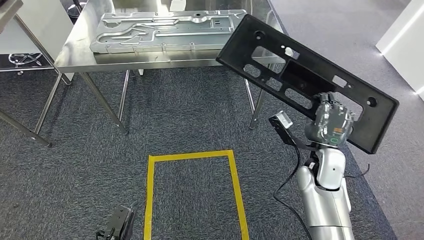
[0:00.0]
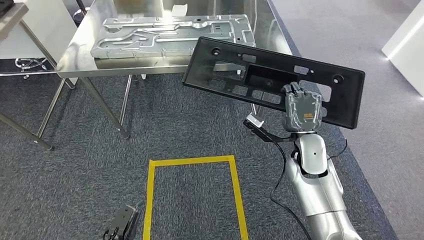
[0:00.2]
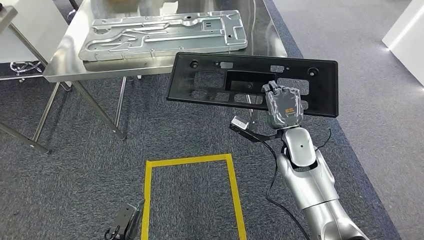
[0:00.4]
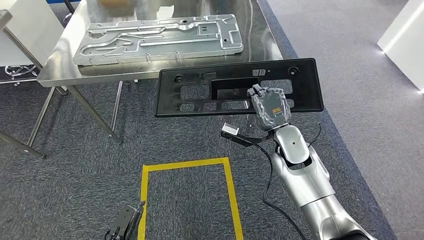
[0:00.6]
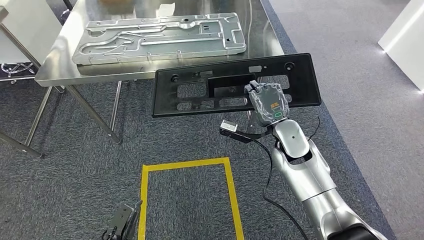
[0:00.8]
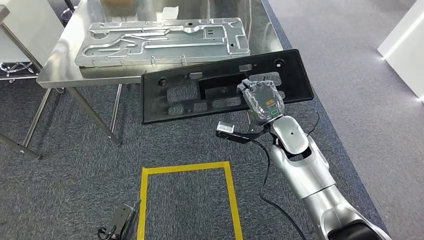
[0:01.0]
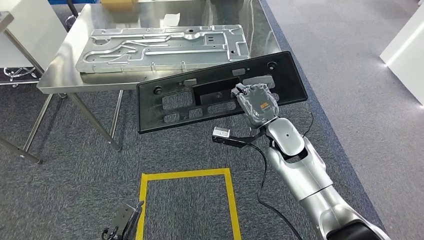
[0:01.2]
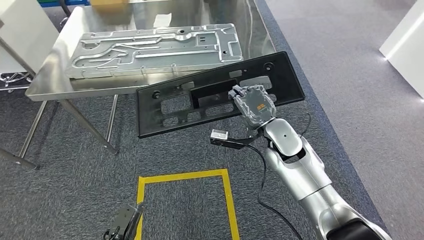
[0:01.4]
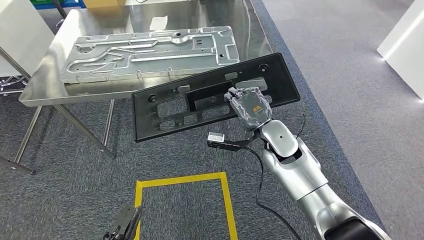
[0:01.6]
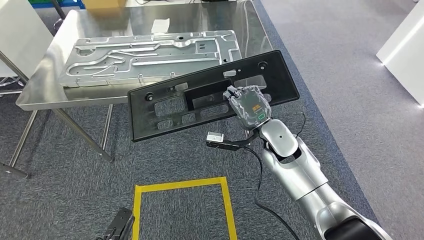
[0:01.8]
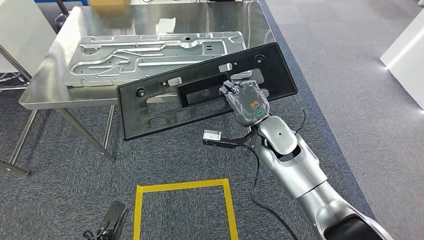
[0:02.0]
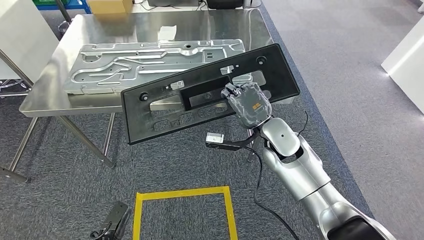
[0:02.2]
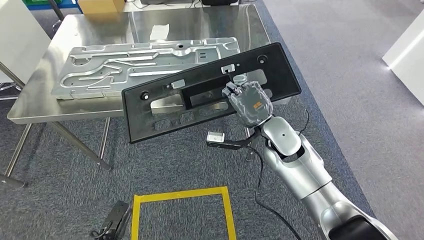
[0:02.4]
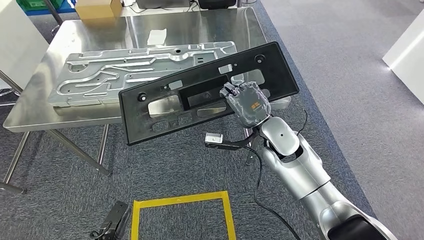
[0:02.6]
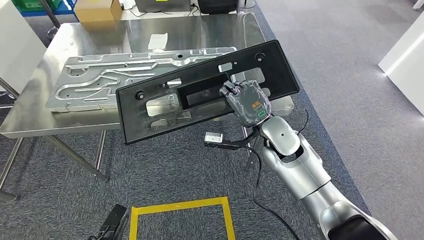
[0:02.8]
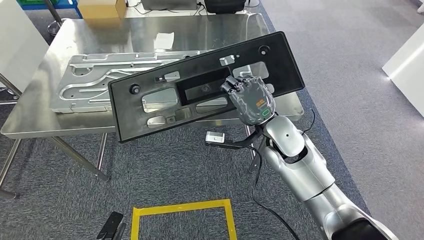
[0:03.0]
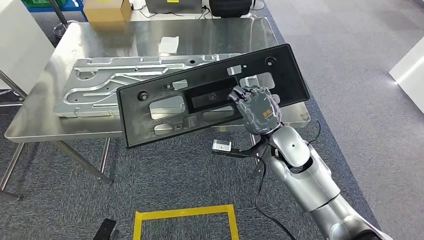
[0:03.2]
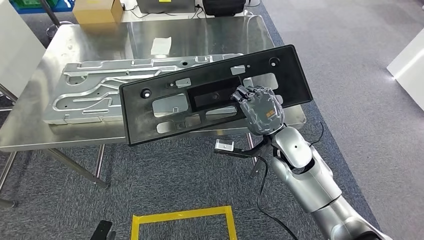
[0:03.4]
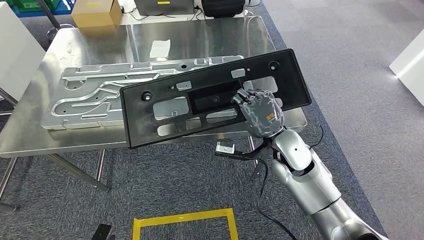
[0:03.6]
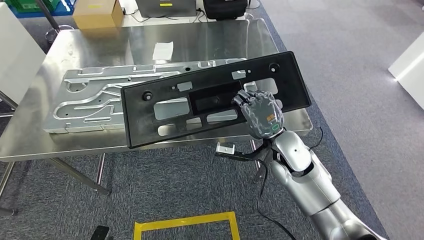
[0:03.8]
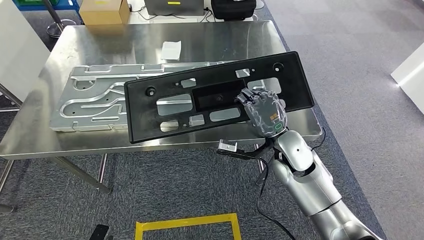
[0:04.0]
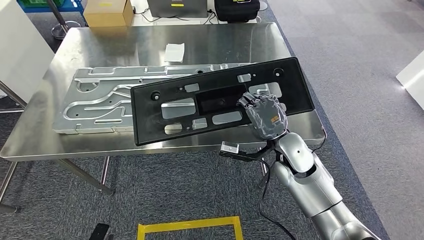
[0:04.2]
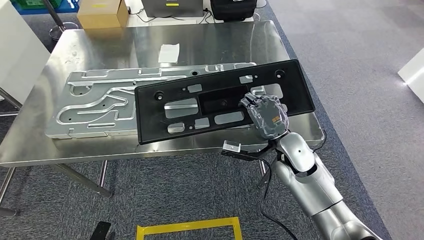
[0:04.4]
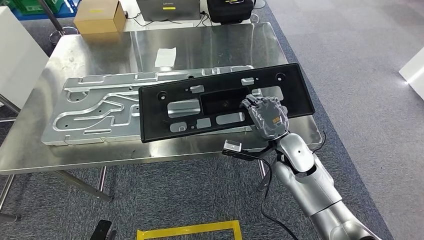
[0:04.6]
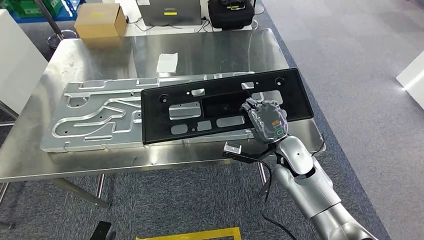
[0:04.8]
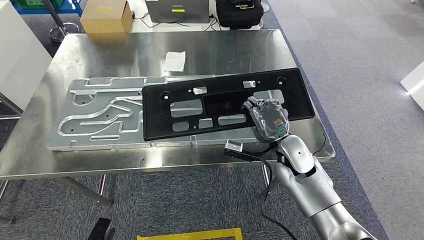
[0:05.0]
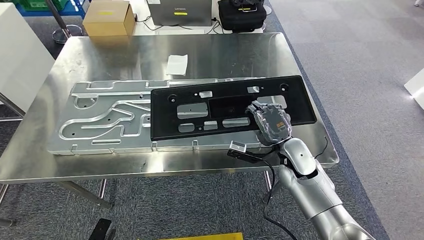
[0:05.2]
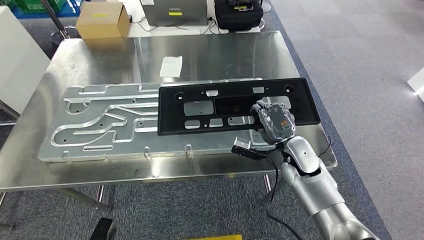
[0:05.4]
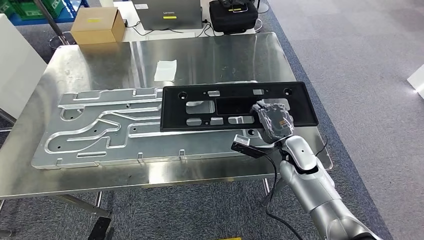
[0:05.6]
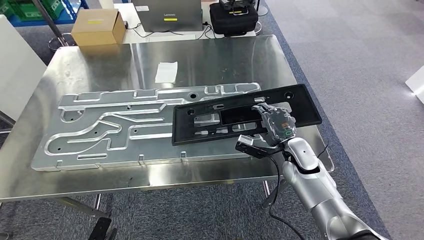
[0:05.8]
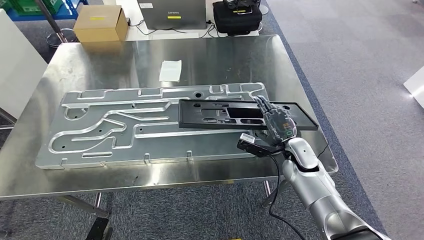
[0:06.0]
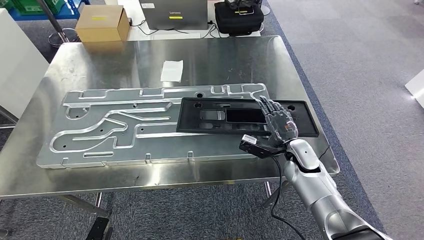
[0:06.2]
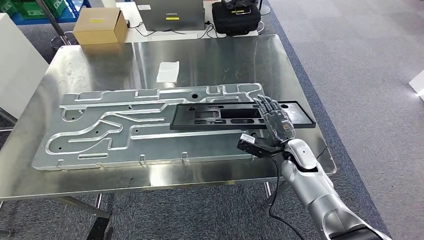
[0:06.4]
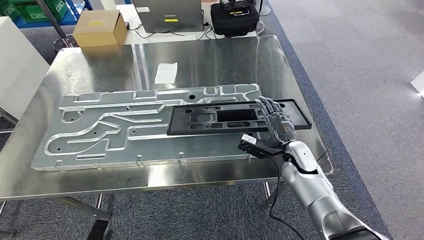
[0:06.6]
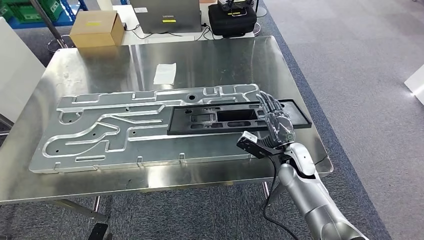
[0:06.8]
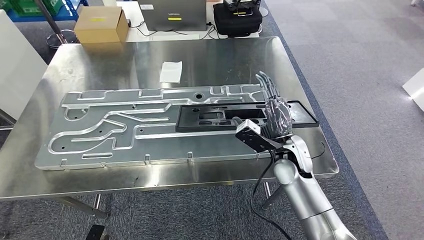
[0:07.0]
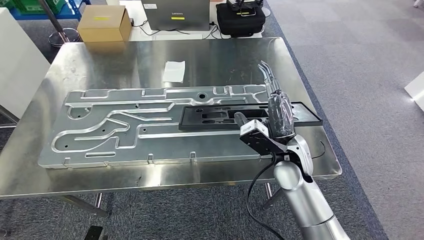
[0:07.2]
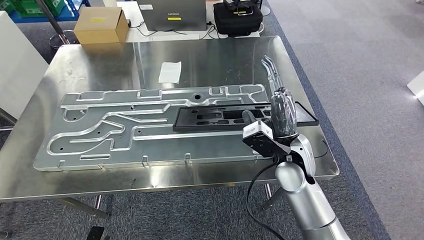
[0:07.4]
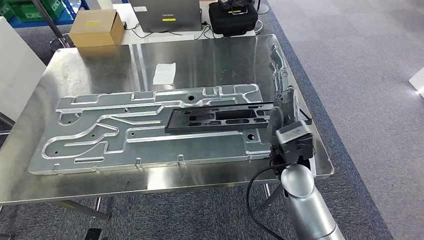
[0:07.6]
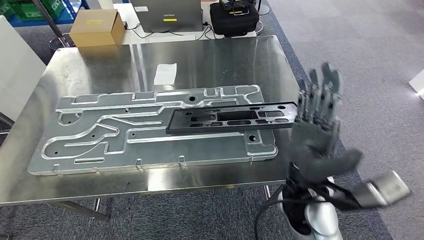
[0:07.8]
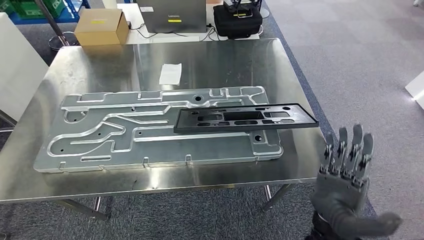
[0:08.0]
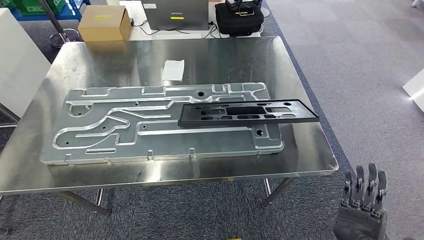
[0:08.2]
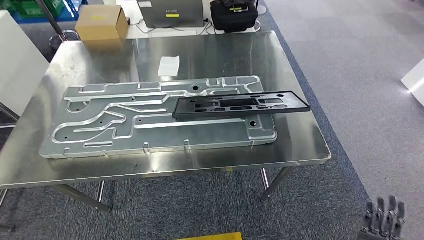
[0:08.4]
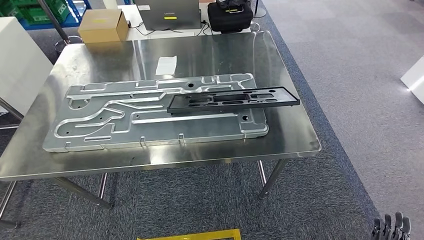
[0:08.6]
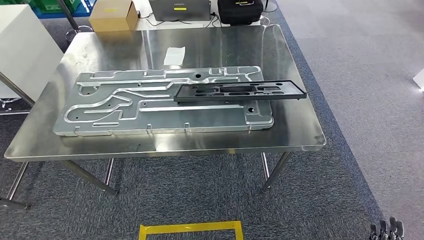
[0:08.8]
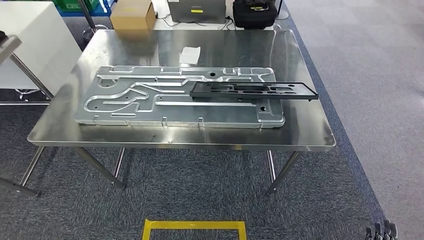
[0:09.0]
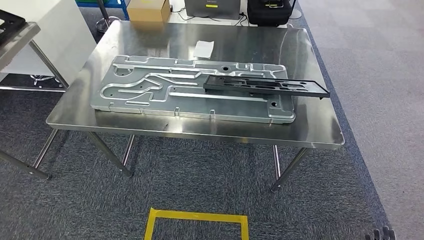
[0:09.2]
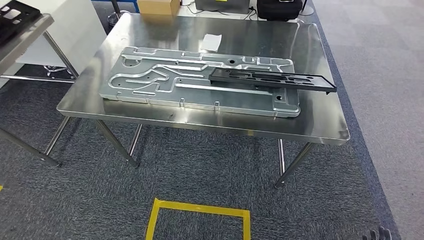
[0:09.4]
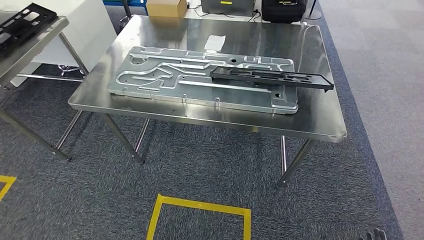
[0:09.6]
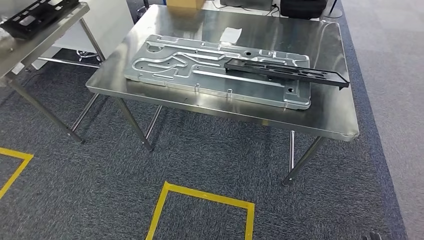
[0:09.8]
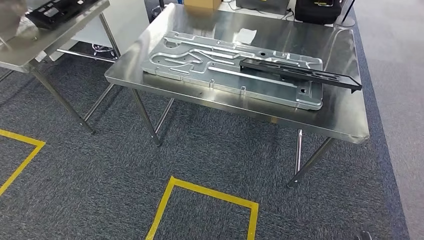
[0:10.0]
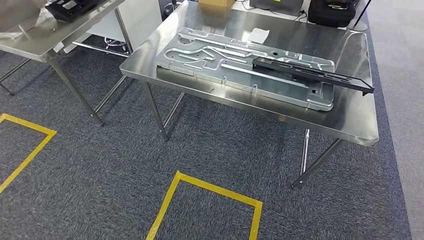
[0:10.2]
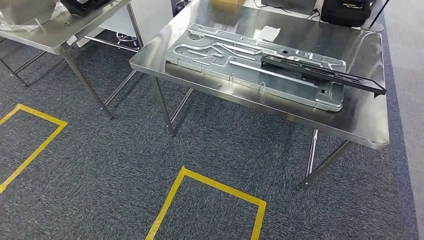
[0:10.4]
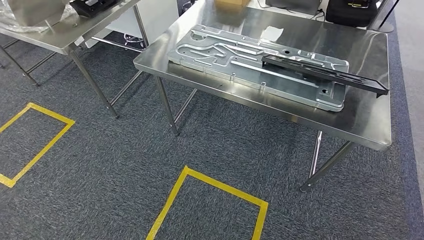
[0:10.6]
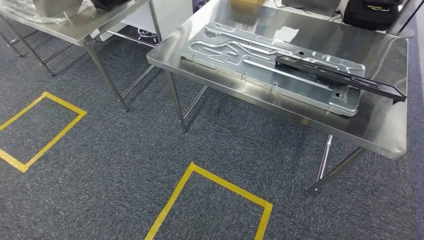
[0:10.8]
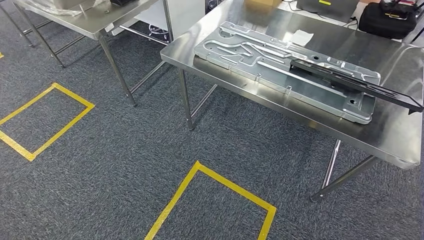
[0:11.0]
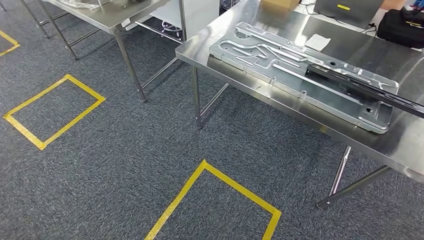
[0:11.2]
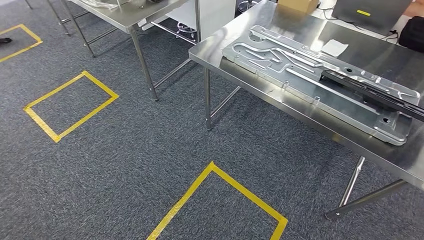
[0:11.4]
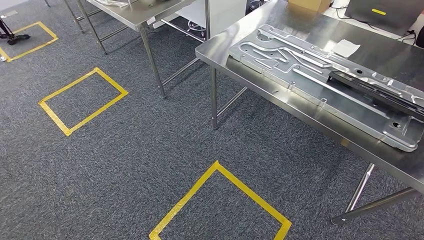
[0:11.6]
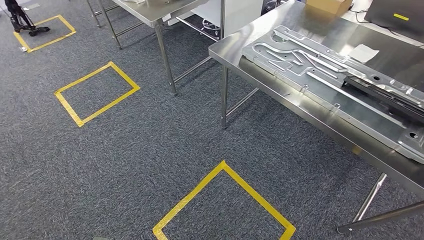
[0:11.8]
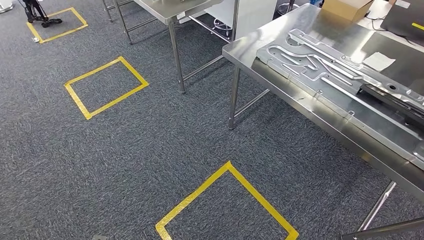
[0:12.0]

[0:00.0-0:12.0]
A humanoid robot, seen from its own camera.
Step, 0:00.0 to 0:05.0: Move the large material to the workbench.
Step, 0:05.2 to 0:10.2: Insert the large material into the corresponding slot on the workbench.

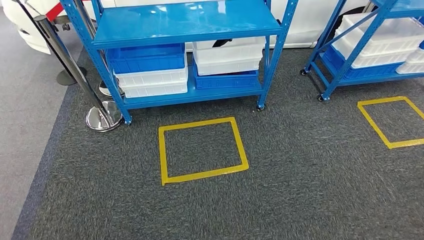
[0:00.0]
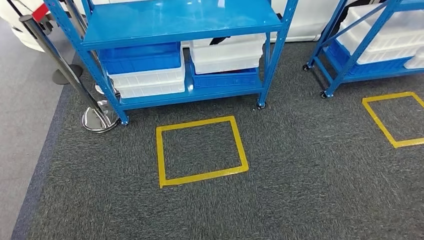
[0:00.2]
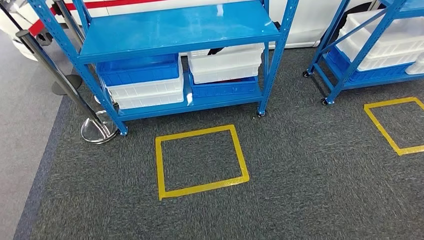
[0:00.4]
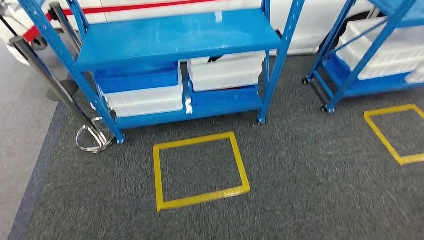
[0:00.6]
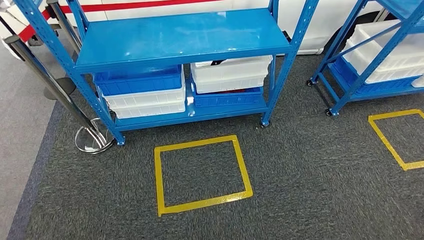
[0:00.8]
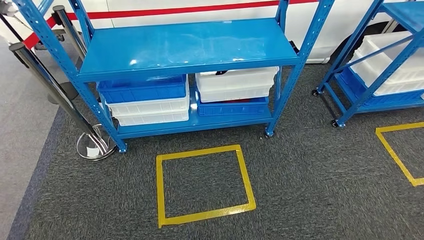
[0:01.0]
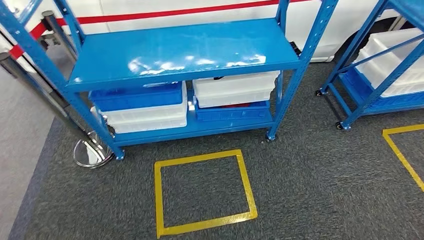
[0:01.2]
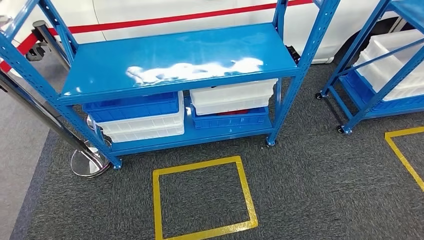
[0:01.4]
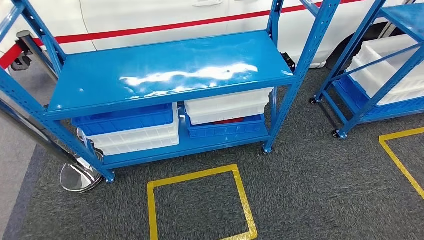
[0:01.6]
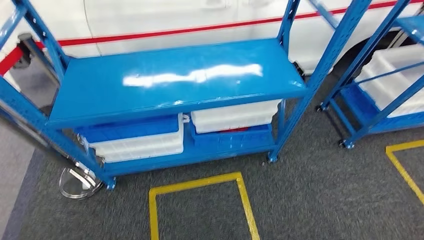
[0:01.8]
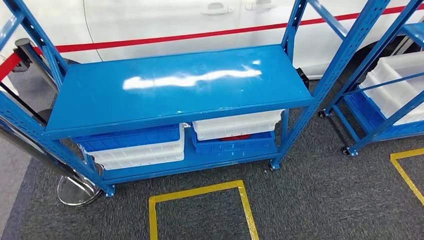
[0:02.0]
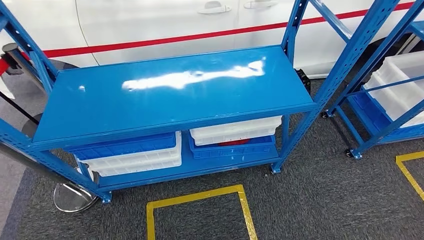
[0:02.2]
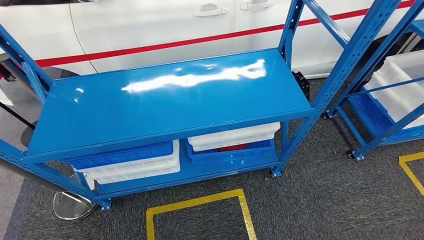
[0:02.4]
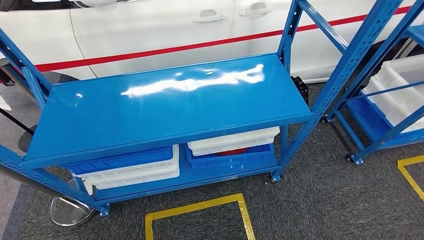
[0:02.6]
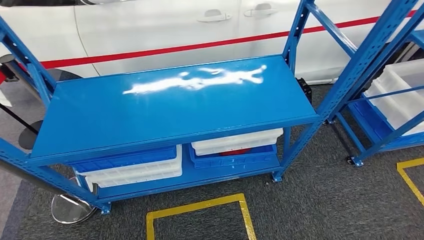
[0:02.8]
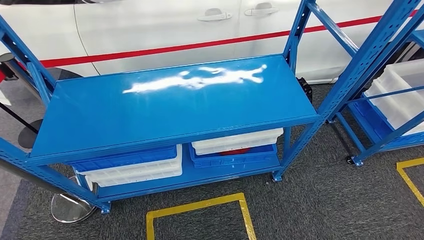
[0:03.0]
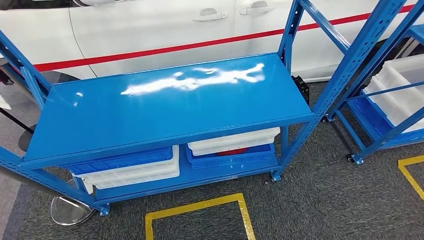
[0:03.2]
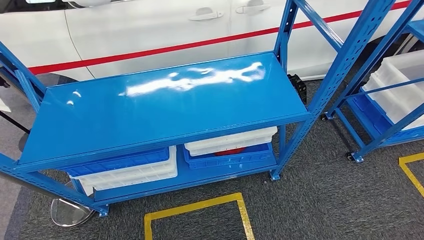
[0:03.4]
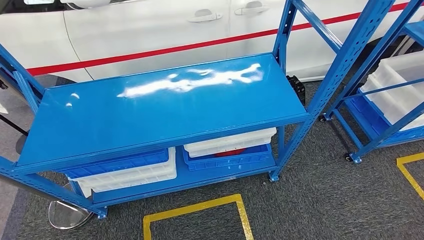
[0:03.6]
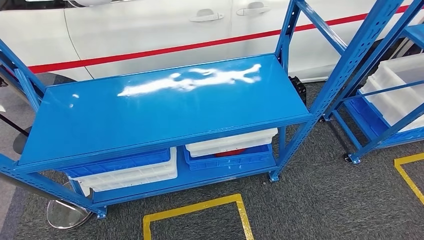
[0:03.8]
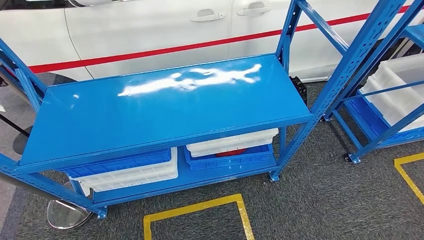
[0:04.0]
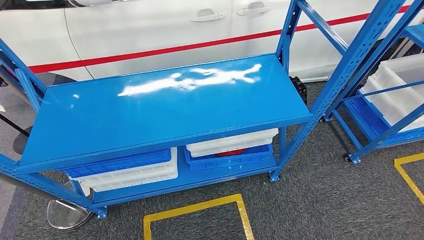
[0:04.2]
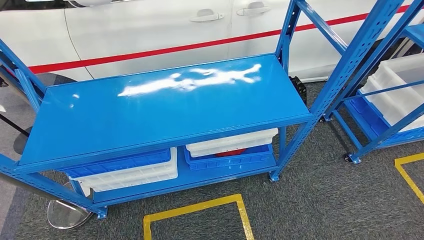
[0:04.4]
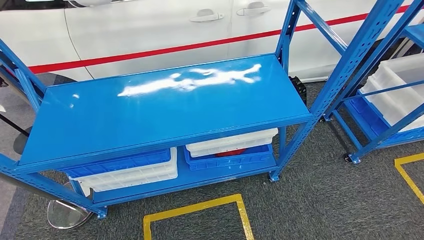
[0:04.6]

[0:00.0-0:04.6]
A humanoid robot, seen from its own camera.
Step, 0:00.0 to 0:04.6: Move to the initial position of the shelf.
